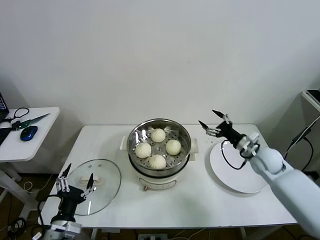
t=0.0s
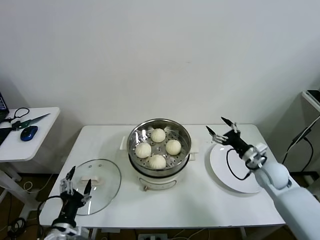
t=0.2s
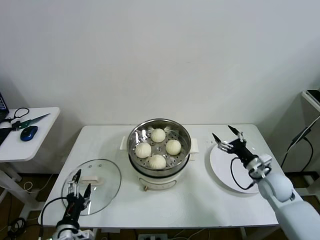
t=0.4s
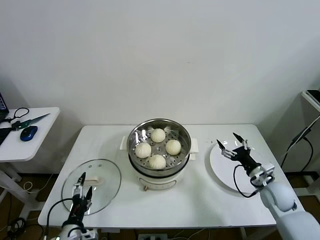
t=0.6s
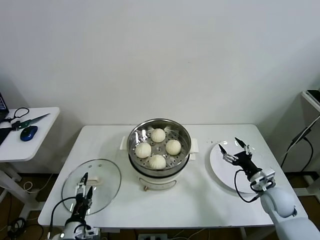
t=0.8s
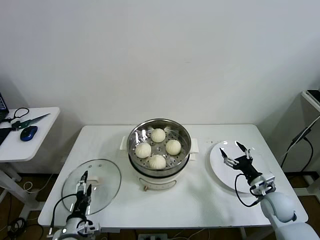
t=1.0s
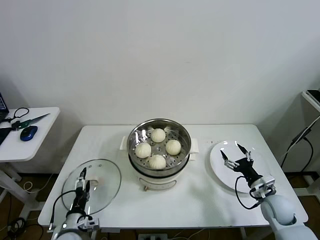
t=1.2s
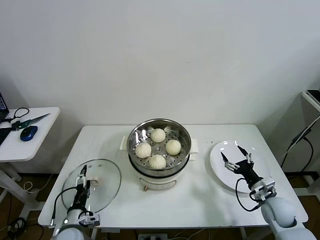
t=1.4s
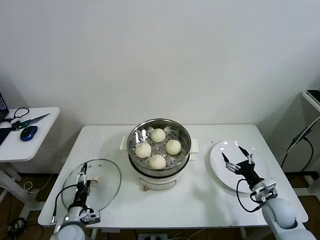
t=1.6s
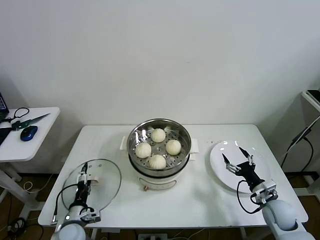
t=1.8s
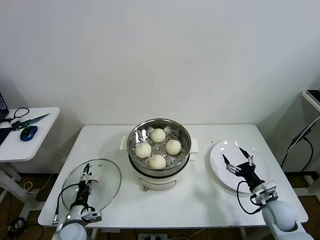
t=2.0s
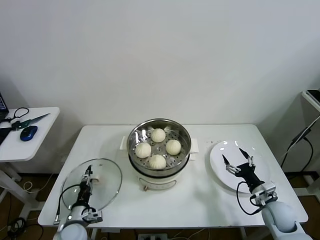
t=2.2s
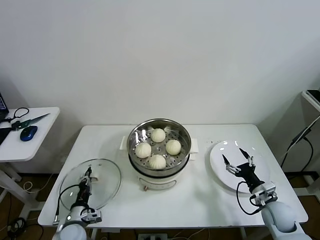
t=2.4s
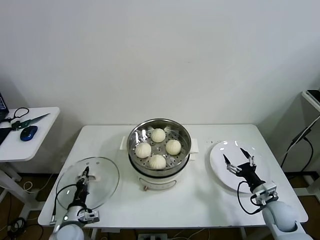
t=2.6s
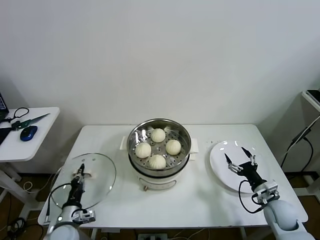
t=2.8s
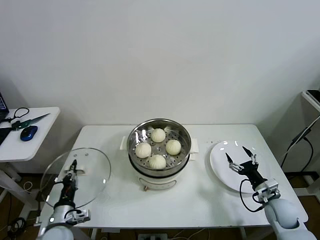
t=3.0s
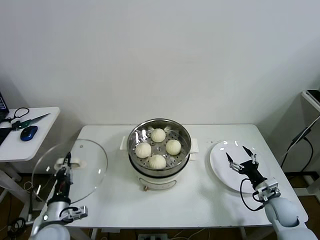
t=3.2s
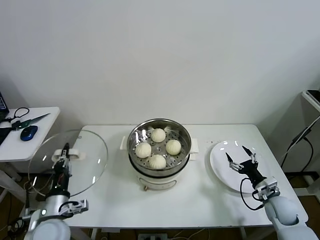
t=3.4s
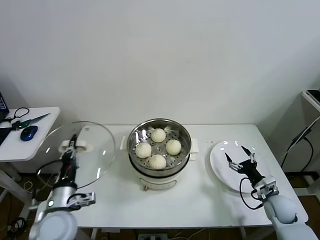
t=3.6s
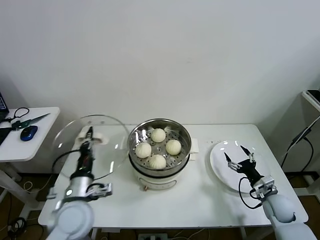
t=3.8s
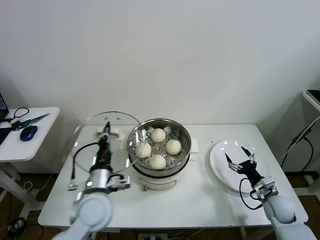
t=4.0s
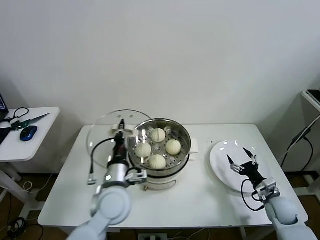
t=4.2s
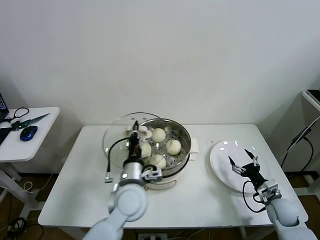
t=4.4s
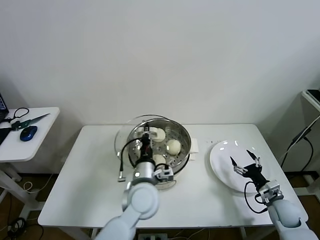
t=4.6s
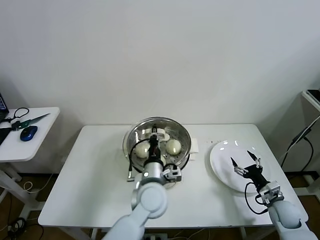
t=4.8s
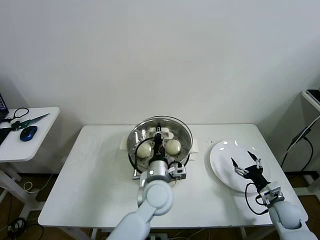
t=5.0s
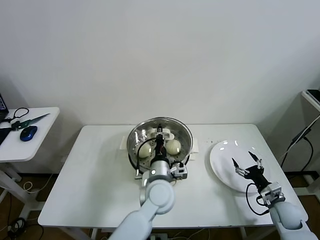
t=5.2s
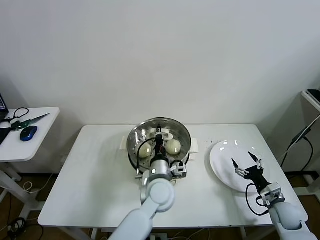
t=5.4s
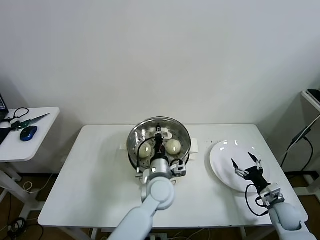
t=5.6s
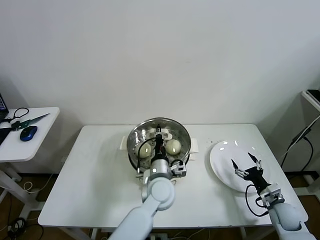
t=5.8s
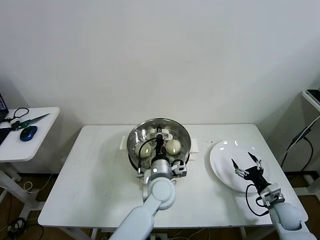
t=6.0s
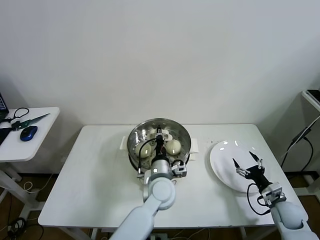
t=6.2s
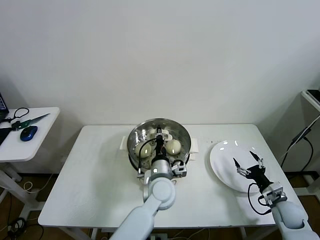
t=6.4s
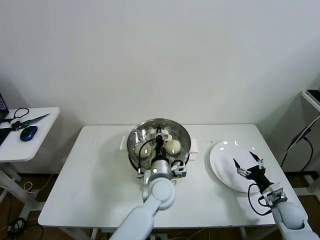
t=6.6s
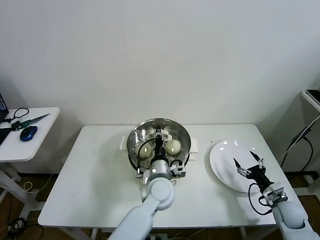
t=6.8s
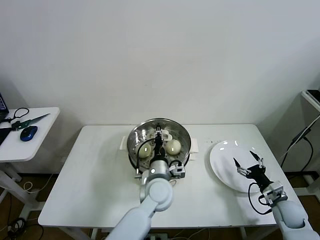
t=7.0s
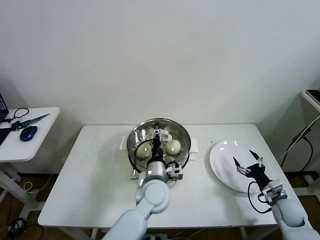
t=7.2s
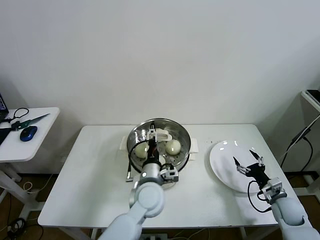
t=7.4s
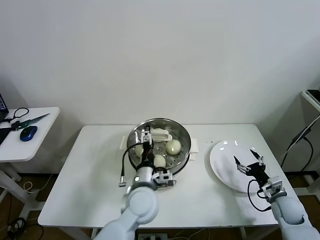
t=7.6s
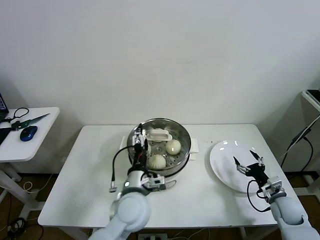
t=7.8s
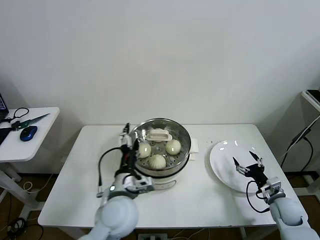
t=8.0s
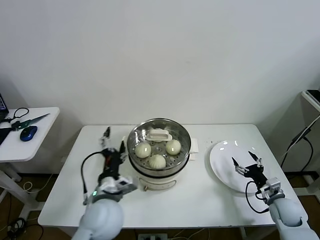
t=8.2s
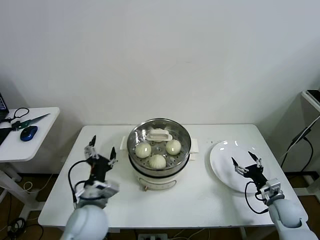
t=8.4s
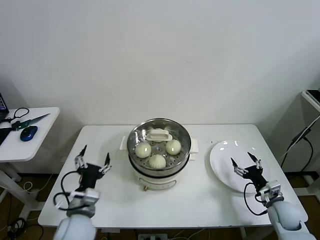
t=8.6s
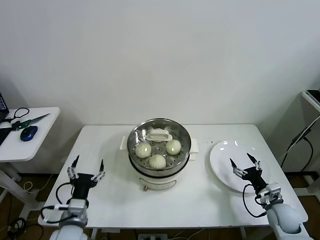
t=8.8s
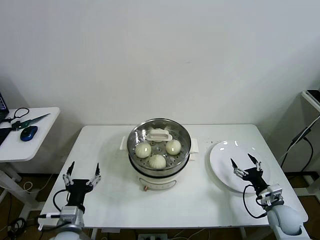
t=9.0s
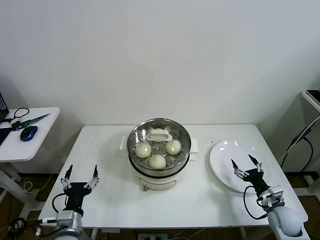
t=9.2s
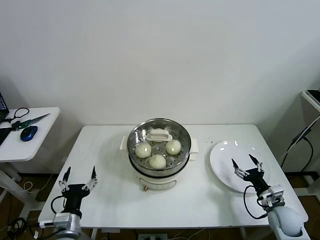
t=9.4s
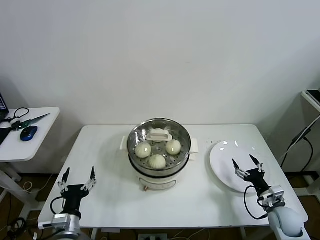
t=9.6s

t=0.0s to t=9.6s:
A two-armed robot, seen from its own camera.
Task of the whole recording: take steamed baozi put them in steamer then cover it.
Step, t=0.0s to t=2.4s: Grasp the pot lid with left gripper.
Step, t=2.6s to t=7.0s: Place the pot lid on the steamer with left gripper.
t=0.0s to t=1.6s: The left gripper heads downward and forward, covering about 15 cm. The right gripper is displaced backward and downward by some 15 cm.
t=1.6s to t=3.2s: The left gripper shifts about 10 cm upward, and closes its fingers.
t=3.2s to t=4.8s: The left gripper is displaced to the right by about 30 cm.
t=4.8s to t=6.4s: The left gripper moves roughly 5 cm.
t=6.4s to t=8.0s: The left gripper travels to the left, backward and upward by roughly 15 cm, and opens its fingers.
t=8.0s to t=9.6s: The left gripper travels to the left, downward and backward by some 20 cm.
